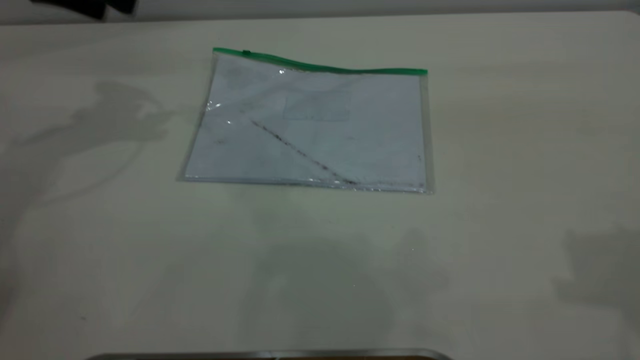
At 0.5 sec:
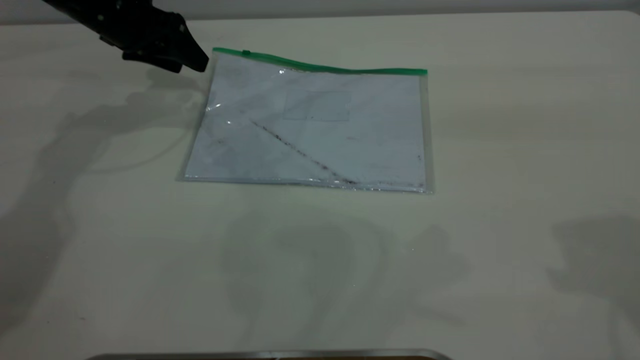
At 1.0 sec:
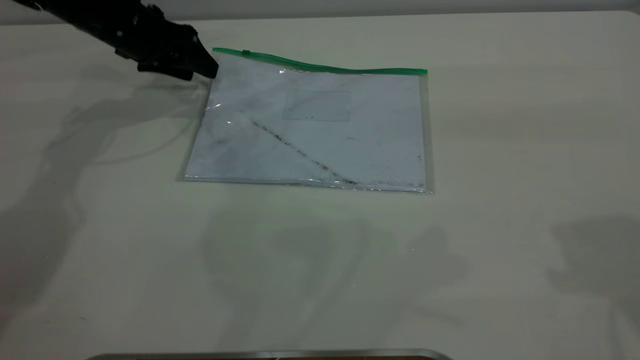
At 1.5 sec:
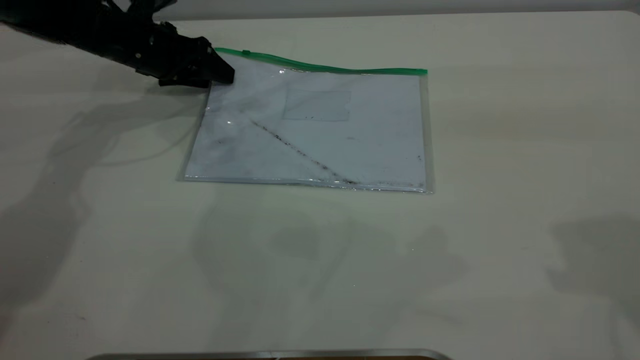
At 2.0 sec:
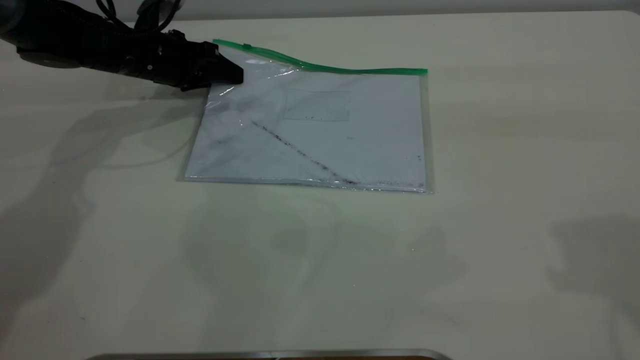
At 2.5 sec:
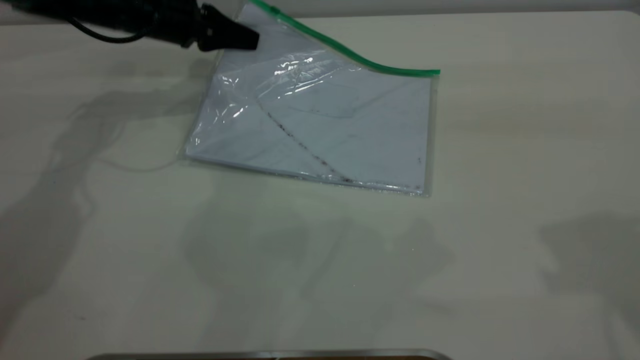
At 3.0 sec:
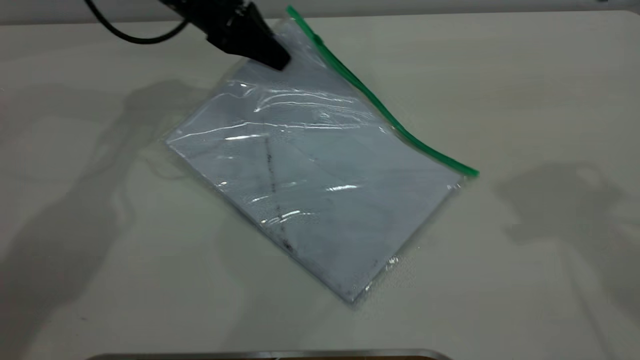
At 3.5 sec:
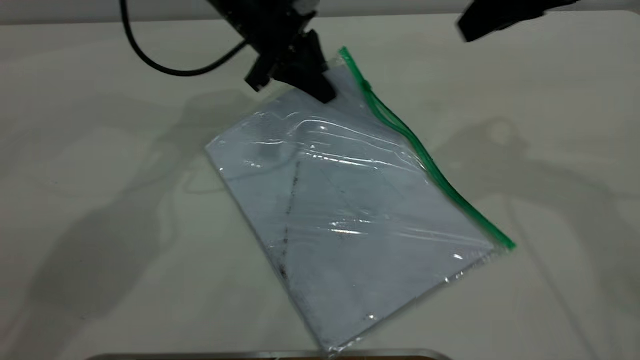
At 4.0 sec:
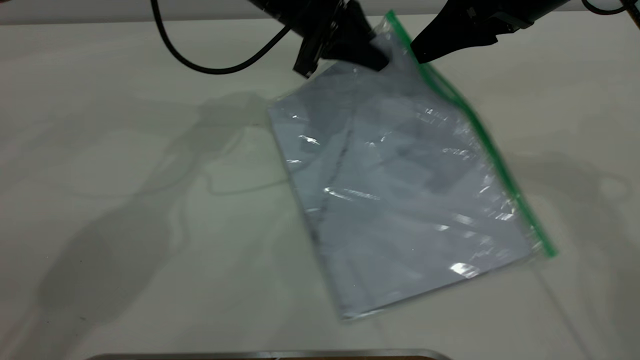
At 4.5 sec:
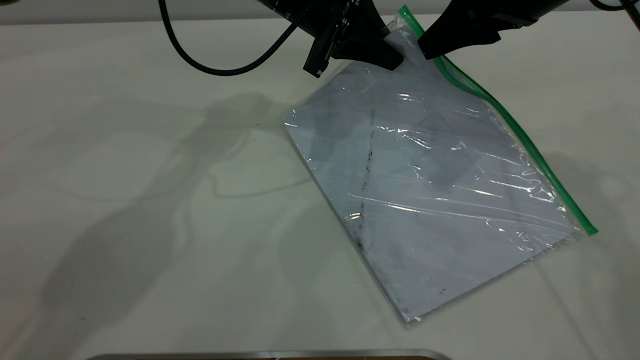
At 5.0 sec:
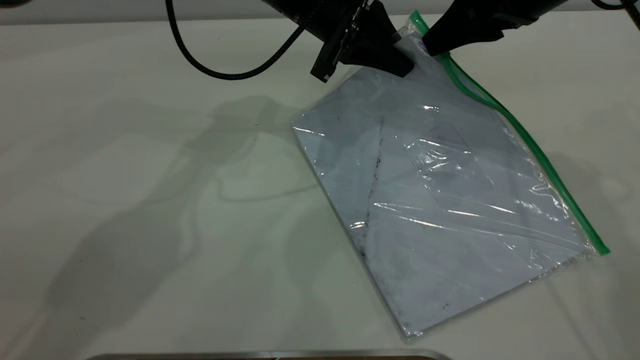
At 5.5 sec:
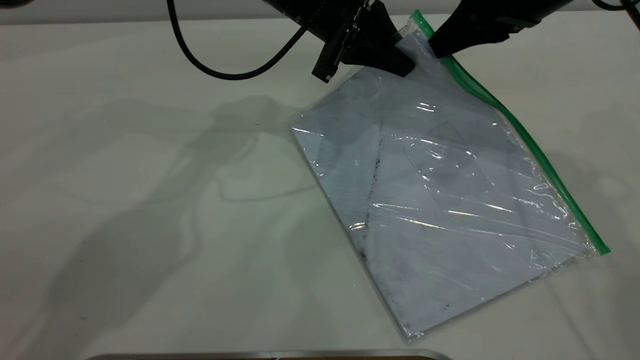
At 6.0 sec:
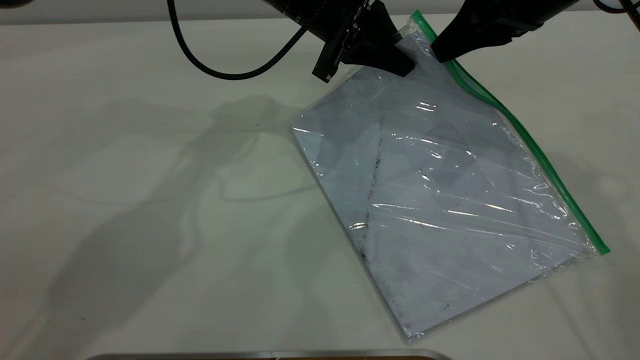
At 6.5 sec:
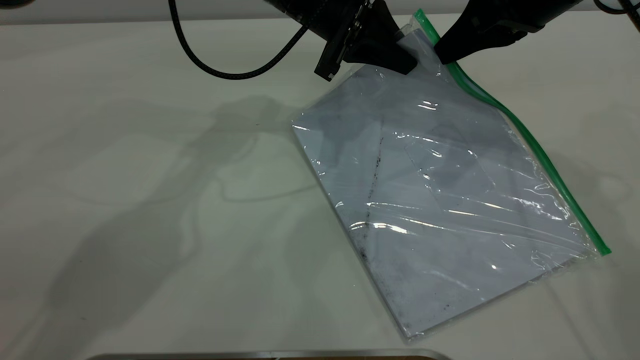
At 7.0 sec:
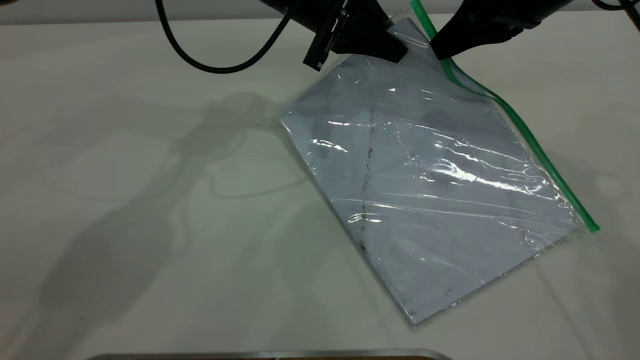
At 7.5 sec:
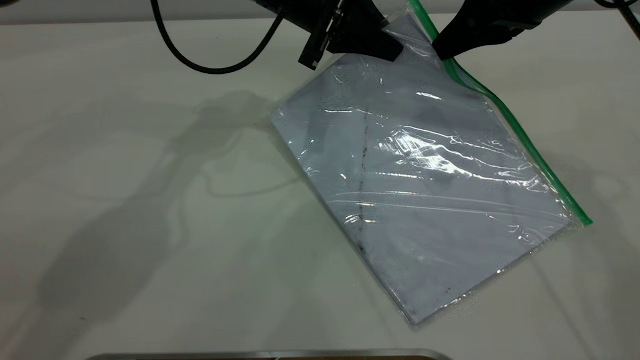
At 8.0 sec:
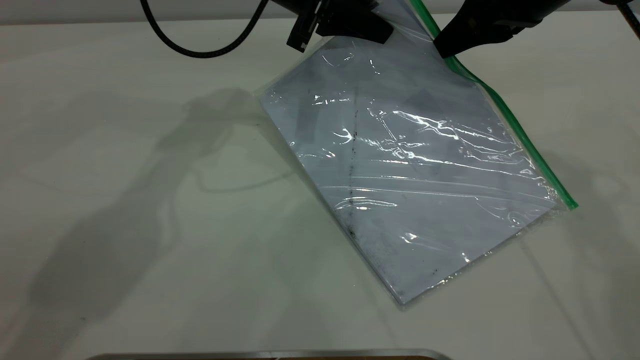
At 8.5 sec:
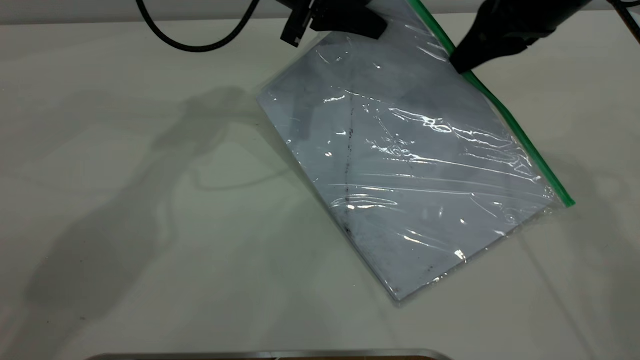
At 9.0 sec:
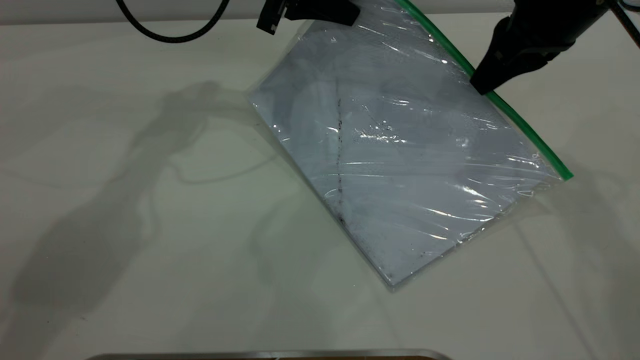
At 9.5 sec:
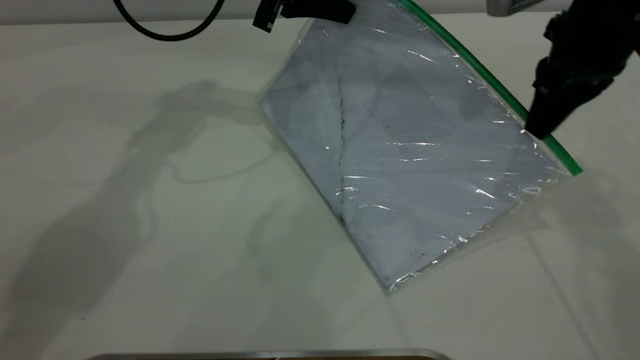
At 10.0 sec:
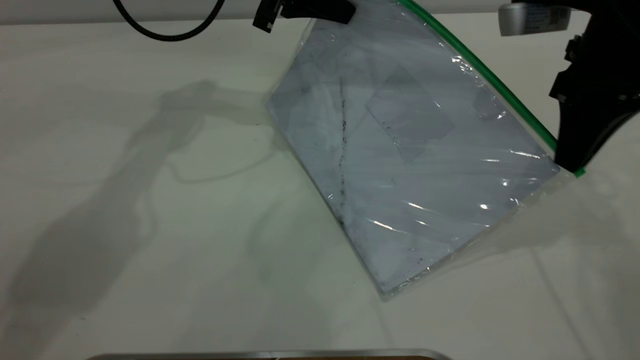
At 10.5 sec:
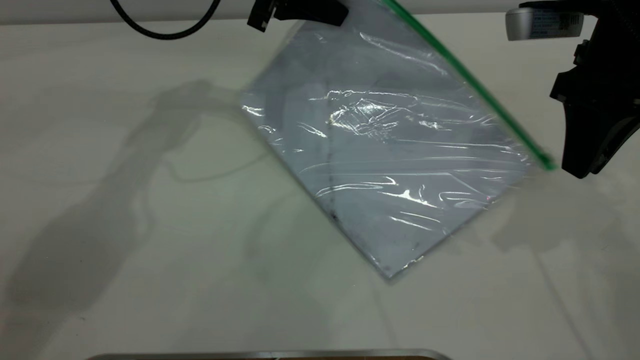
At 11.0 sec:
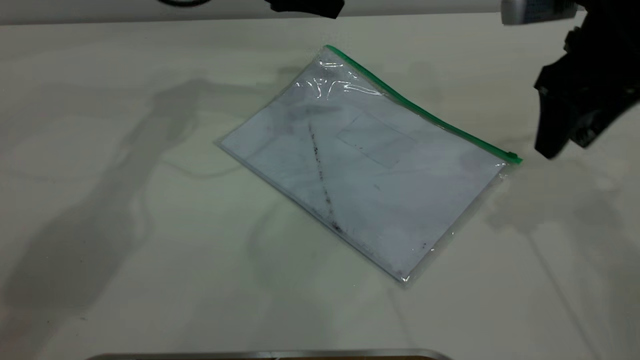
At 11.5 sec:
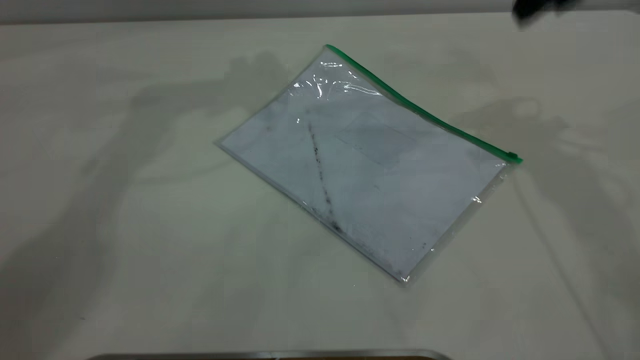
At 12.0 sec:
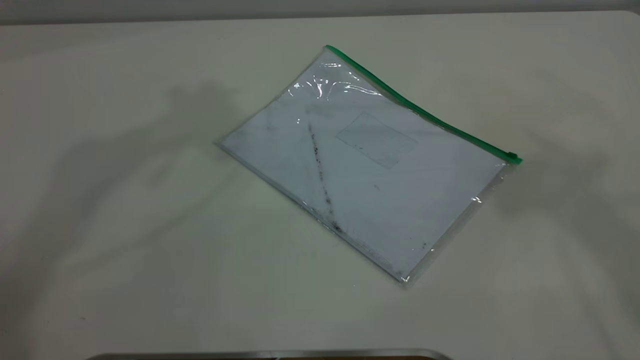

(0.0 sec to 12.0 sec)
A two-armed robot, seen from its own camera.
Step, 0.0 sec - 2.0 sec: Pick up the transparent plastic bag with the left gripper.
Step, 2.5 sec - 10.0 sec: Pulling up the zipper on the transparent plastic bag with the right gripper to close it.
0.0 sec - 2.0 sec: The left gripper goes about 15 cm downward, and closes its fingers.
2.0 sec - 4.0 sec: The left gripper goes some 20 cm to the right and upward. The right gripper moves forward, downward and to the left, some 20 cm.
4.0 sec - 6.0 sec: The right gripper closes its fingers.
6.0 sec - 8.0 sec: The grippers move only a little.
8.0 sec - 10.0 sec: The right gripper heads backward, covering roughly 5 cm.
10.0 sec - 12.0 sec: The grippers both shift upward by roughly 35 cm. The left gripper opens up; the right gripper opens.
